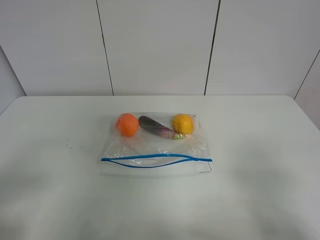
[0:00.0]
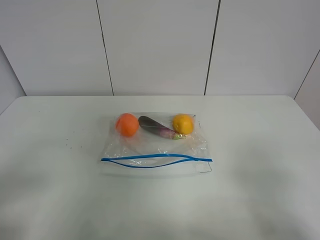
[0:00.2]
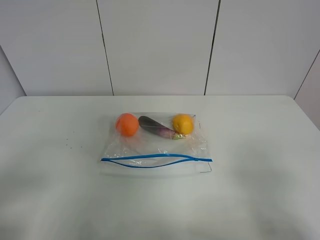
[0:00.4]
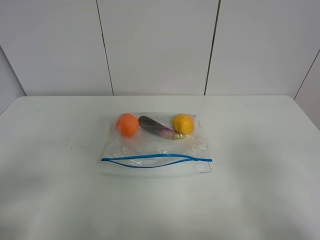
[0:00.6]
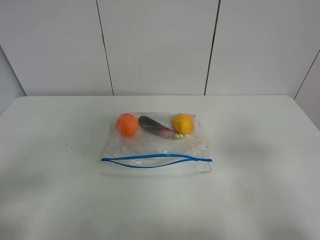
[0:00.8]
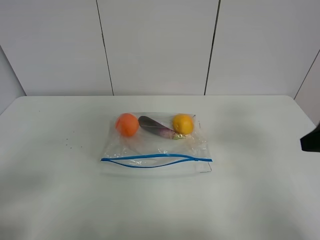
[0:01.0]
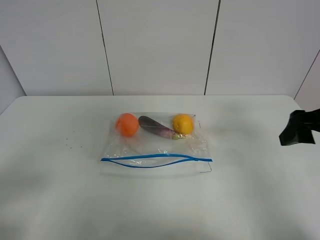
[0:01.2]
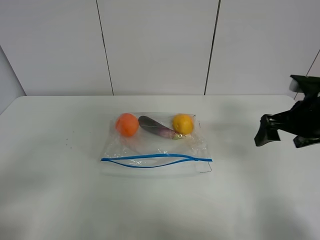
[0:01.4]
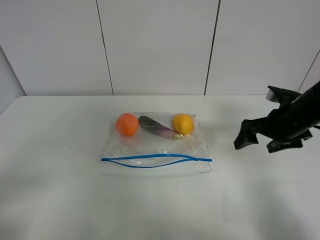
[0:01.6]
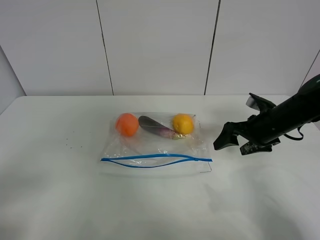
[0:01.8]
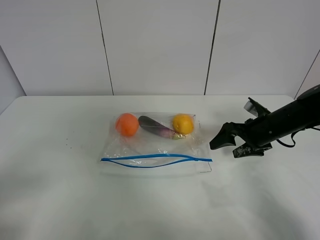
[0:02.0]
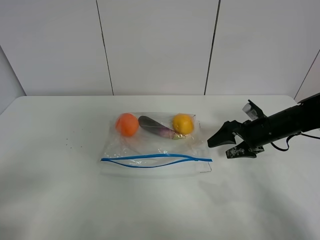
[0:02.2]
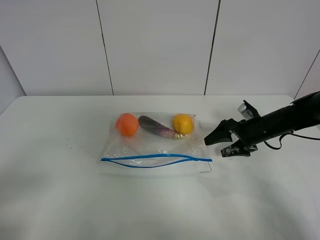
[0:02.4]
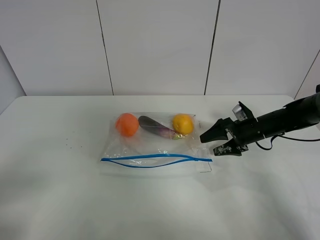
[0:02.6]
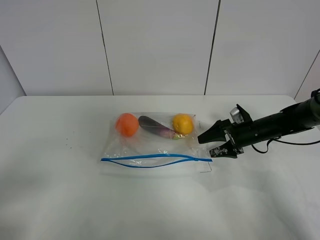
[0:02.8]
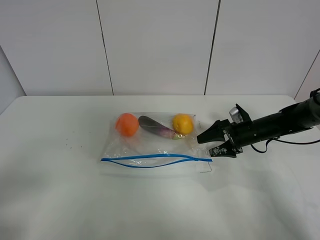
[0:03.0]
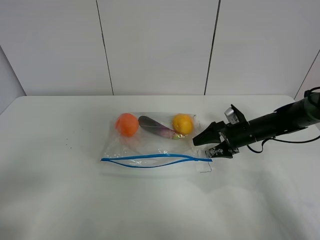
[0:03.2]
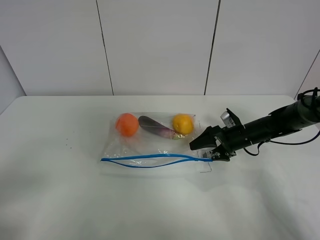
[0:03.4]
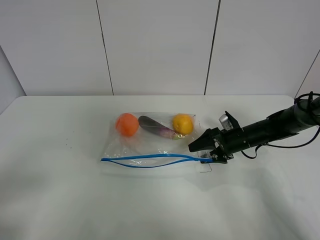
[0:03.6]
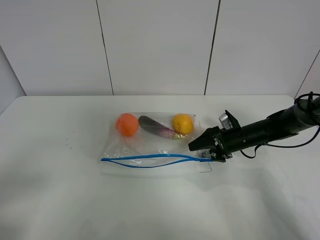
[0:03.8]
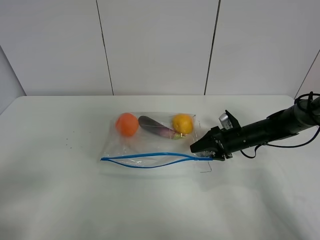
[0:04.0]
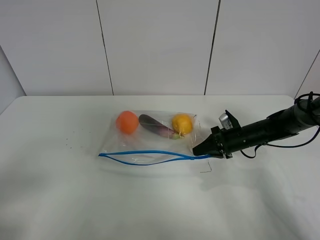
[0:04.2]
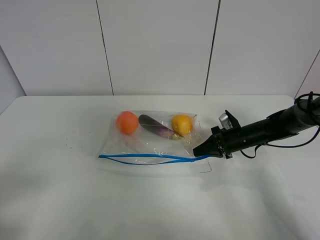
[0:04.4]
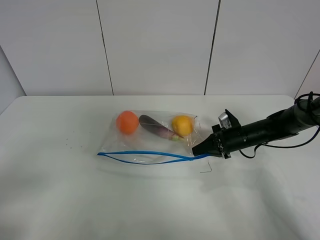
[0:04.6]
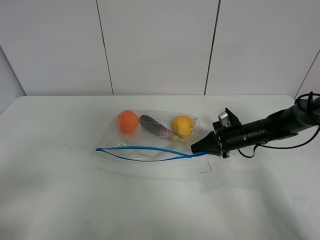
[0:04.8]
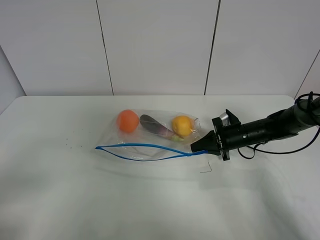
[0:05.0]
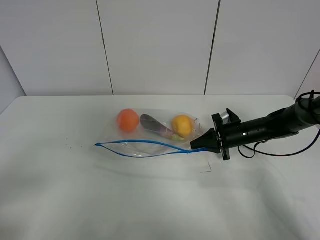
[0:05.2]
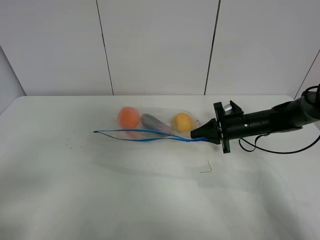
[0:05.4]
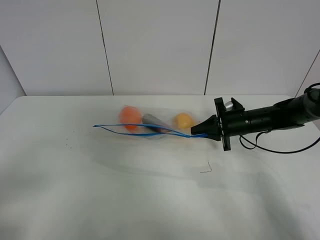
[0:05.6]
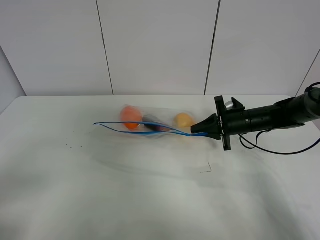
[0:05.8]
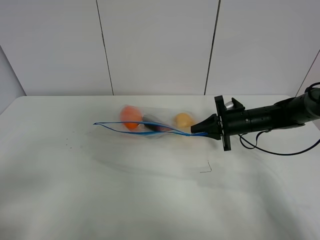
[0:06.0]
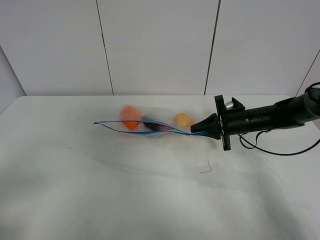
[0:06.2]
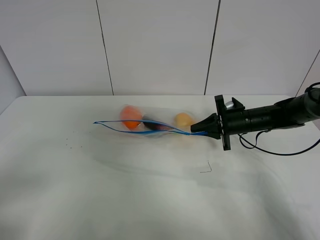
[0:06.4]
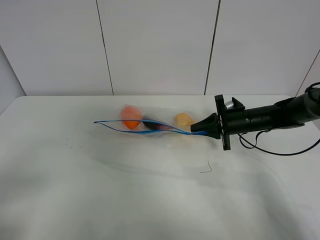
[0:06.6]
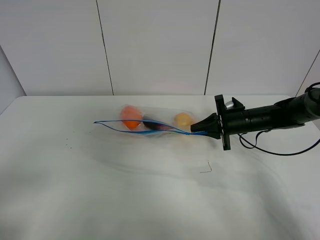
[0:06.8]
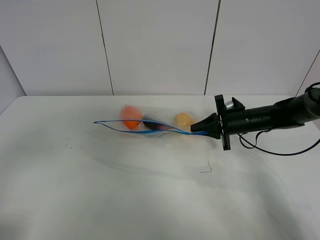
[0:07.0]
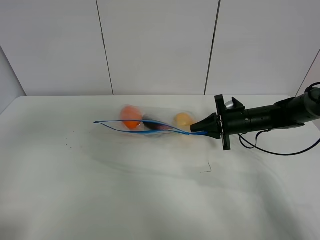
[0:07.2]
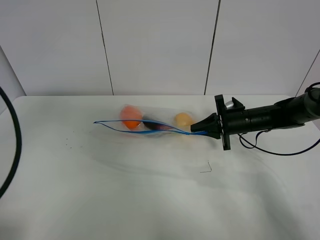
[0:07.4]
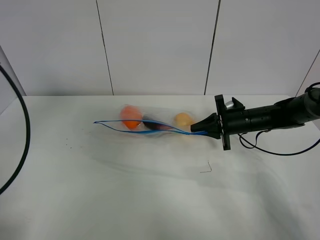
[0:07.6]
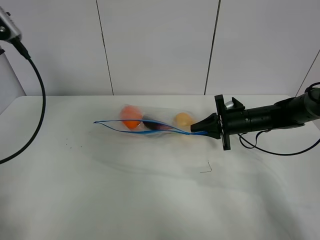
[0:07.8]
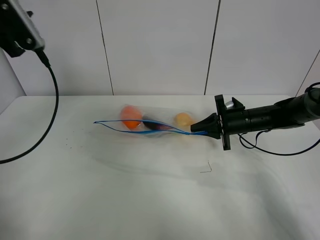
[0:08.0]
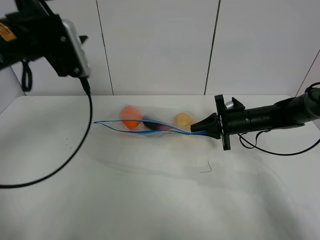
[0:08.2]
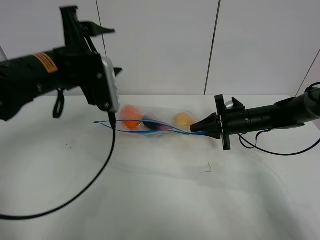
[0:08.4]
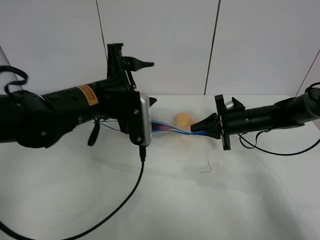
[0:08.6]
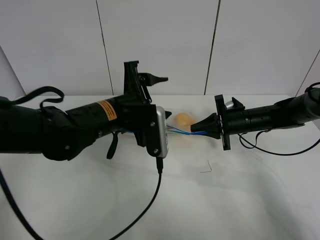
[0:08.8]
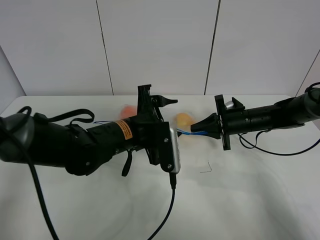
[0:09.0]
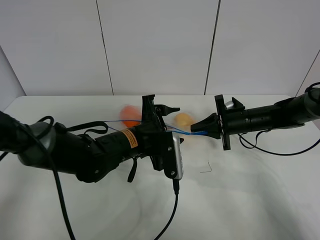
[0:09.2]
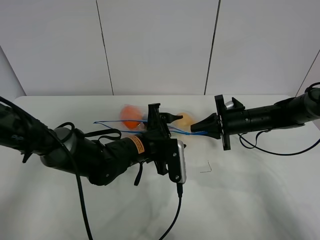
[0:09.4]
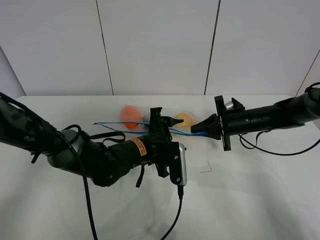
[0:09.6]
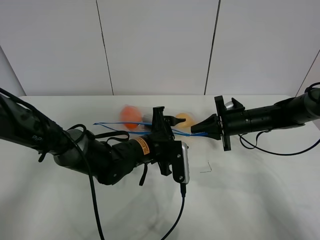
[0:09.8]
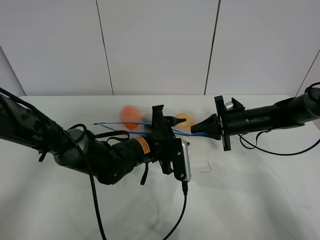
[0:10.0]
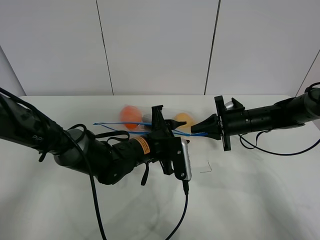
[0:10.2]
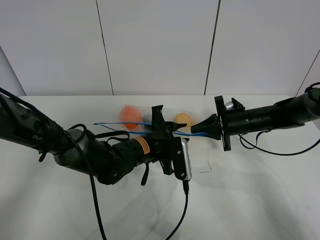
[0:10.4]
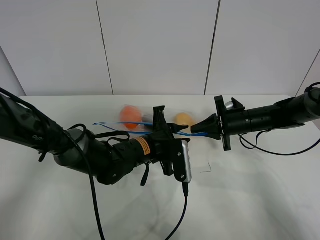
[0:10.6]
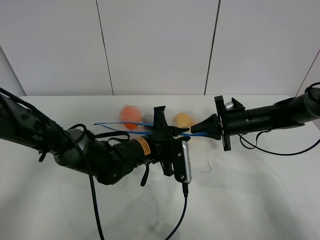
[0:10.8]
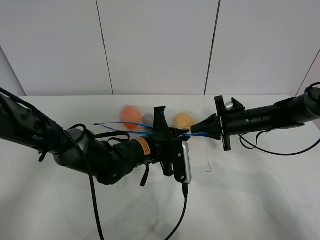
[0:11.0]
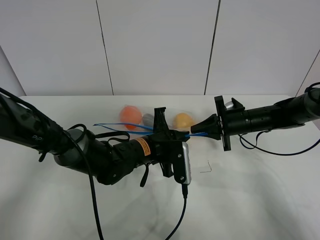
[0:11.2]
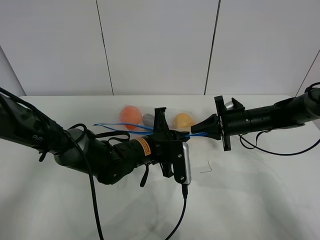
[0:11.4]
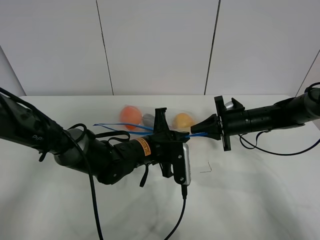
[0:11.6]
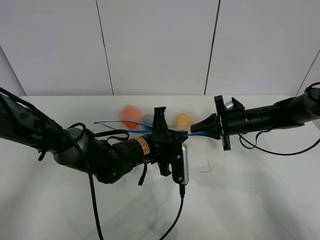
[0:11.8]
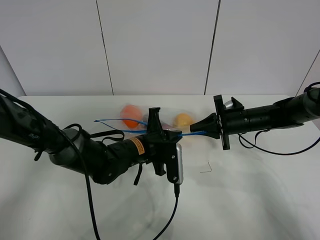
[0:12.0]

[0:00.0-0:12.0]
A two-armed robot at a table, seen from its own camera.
Step, 0:00.0 to 0:04.2: Grasp the fruit bag with right gripper.
Step, 0:04.4 to 0:07.2: Lift the fruit bag with your right gripper.
0:00.0 to 0:01.6: The right gripper shifts approximately 30 cm forward.
0:01.6 to 0:03.0: The right gripper heads downward and forward, covering roughly 15 cm.
0:03.0 to 0:04.4: The right gripper closes up.
0:04.4 to 0:06.0: The right gripper changes place by some 5 cm.
0:06.0 to 0:07.6: The left gripper heads forward and upward, covering some 25 cm.
0:07.6 to 0:09.0: The left gripper travels to the right and downward by roughly 35 cm.
0:09.0 to 0:10.4: The left gripper moves downward, approximately 5 cm, and closes its fingers.
0:10.4 to 0:12.0: The left gripper closes up.

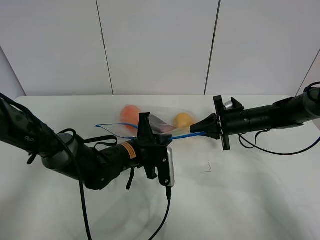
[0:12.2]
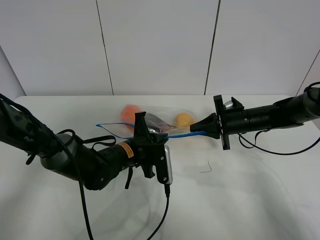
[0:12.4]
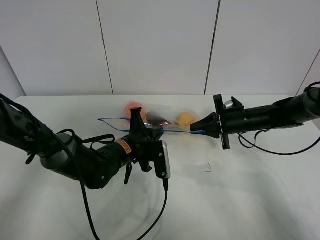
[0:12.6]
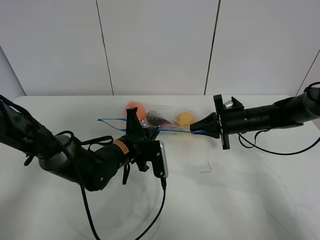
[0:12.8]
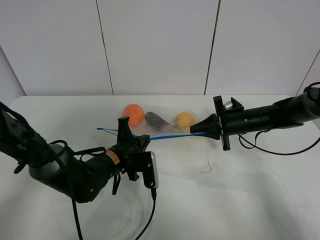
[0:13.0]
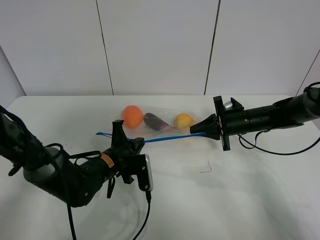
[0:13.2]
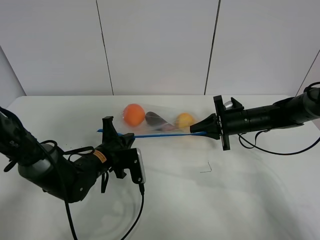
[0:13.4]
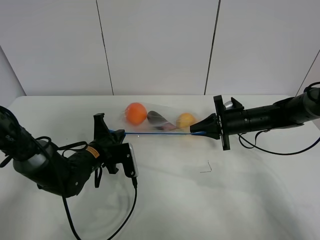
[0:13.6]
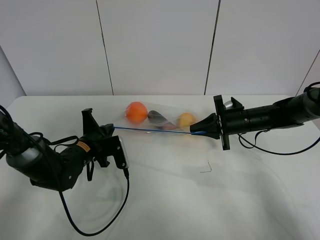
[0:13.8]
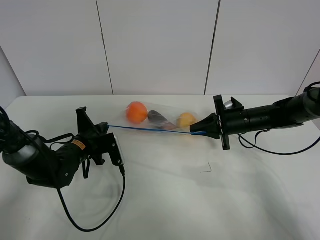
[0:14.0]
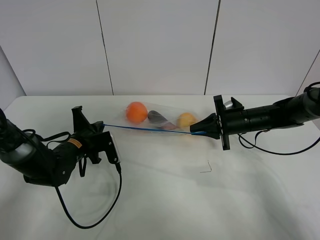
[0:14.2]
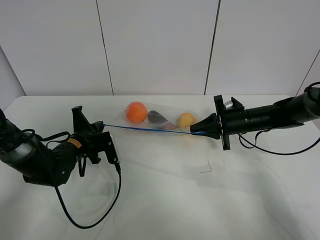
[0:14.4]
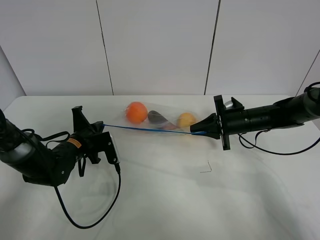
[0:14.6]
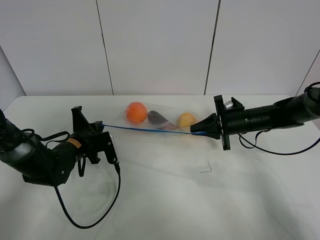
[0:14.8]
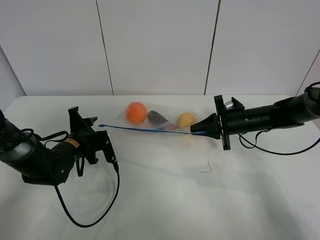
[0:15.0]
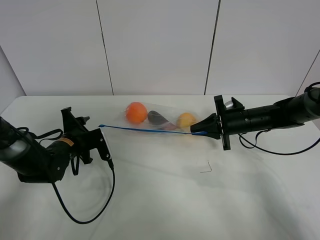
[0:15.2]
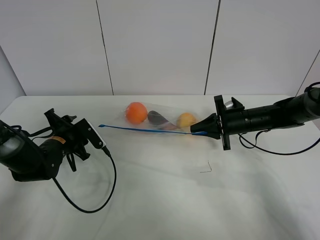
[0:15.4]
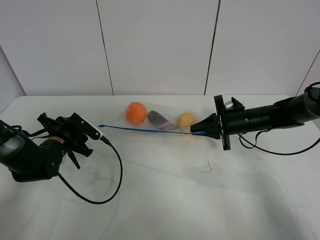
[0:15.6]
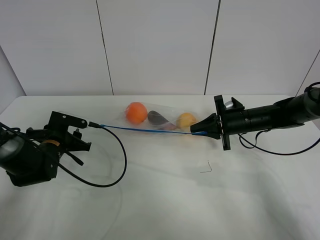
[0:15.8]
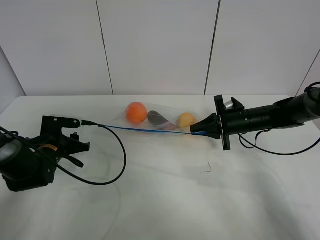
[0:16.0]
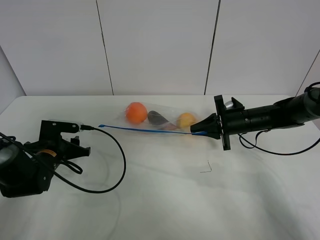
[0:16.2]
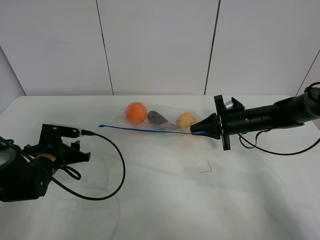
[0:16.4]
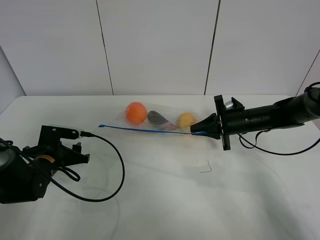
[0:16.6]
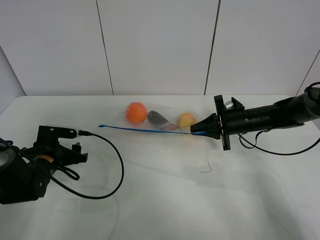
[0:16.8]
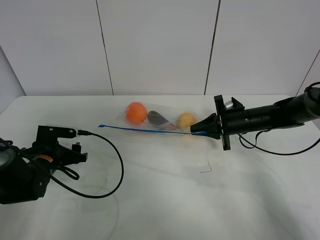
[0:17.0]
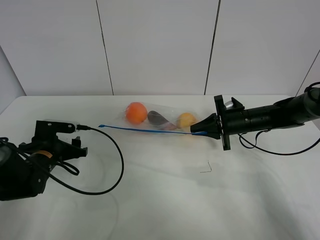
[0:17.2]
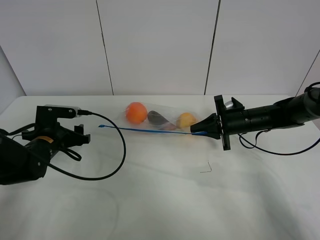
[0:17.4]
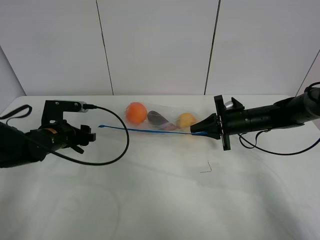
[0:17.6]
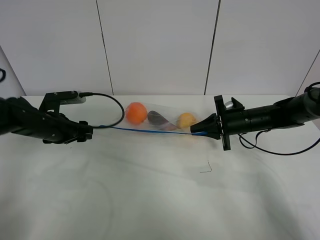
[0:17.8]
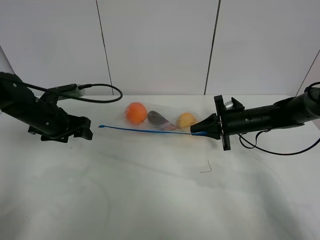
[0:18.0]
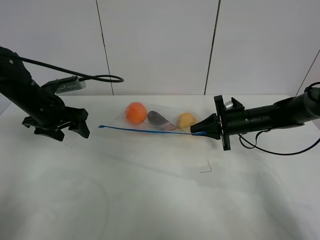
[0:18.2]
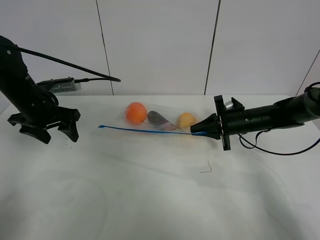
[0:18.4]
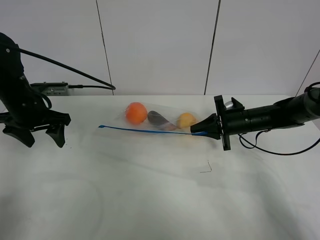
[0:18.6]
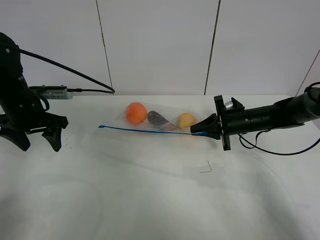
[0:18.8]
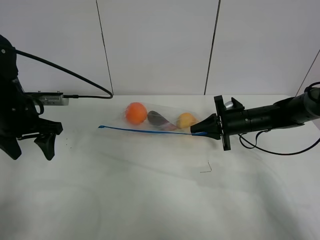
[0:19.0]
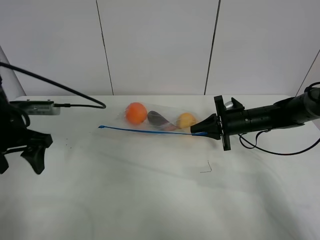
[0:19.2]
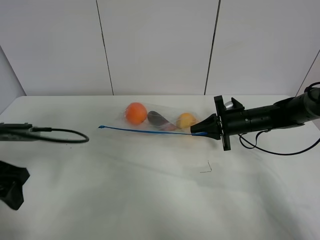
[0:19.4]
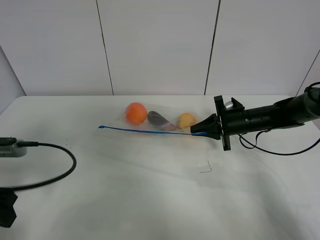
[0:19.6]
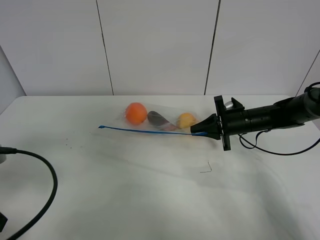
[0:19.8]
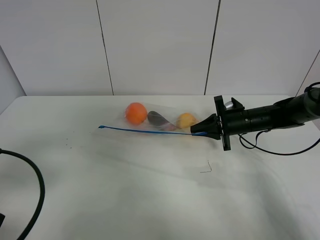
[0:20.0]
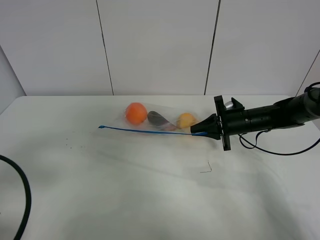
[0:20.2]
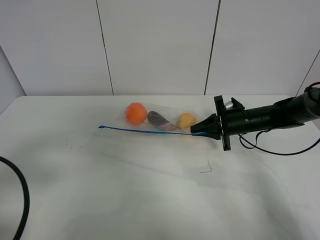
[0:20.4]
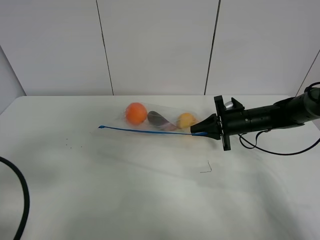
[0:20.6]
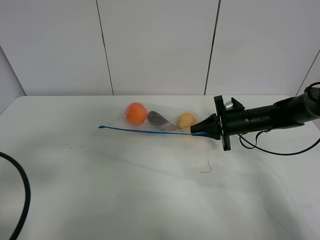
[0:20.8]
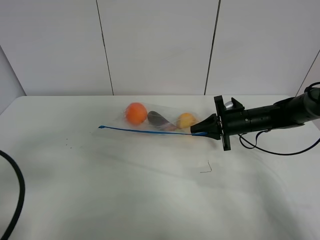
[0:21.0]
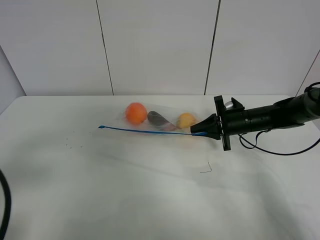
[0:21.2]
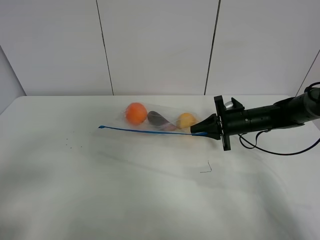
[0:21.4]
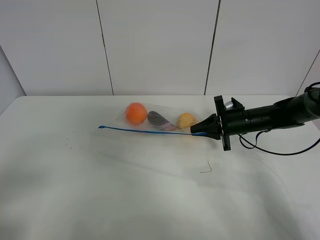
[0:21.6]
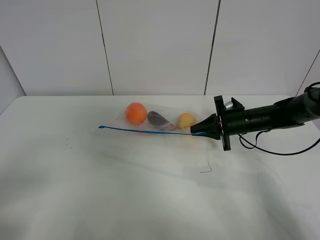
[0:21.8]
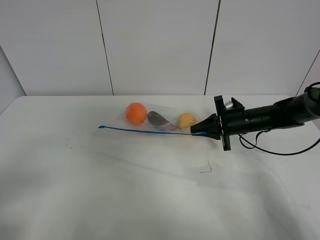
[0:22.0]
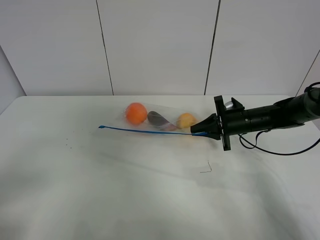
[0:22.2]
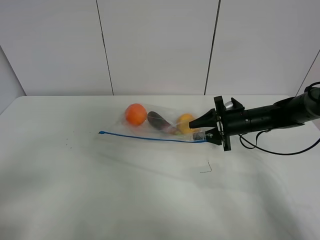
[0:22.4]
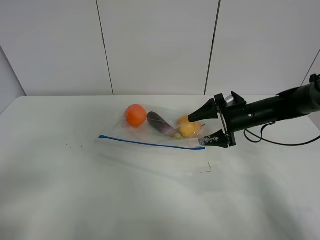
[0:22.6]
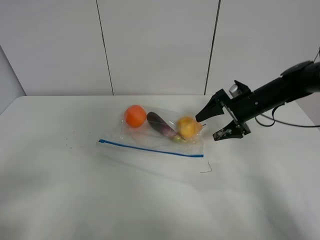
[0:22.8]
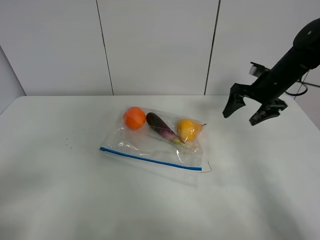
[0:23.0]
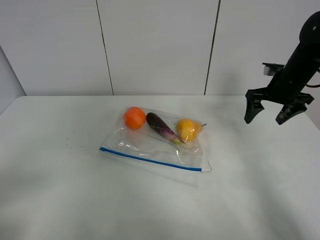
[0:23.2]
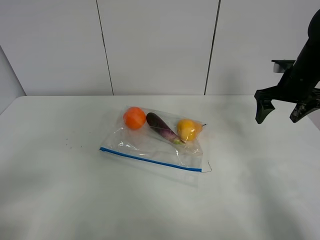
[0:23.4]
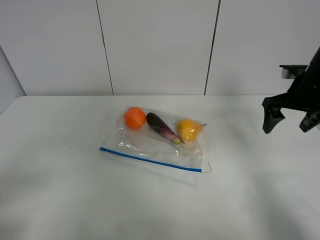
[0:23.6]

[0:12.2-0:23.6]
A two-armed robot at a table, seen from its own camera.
Step, 0:12.2 to 0:15.6: Pull the fruit bag with left gripper.
0:12.2 to 0:13.6: The left gripper travels to the left by some 10 cm.
0:13.6 to 0:15.0: The left gripper travels to the left by roughly 5 cm, and opens its fingers.
0:15.0 to 0:16.4: The left gripper travels to the left by approximately 5 cm.
0:16.4 to 0:17.8: The left gripper shifts about 5 cm upward.
0:17.8 to 0:19.4: The left gripper shifts approximately 15 cm backward and upward.
0:19.4 to 0:20.8: The left gripper is displaced backward by roughly 10 cm.
0:20.8 to 0:22.2: The left gripper shifts about 10 cm backward.
0:22.2 to 0:23.6: The right gripper heads upward and to the right, covering approximately 15 cm, and opens up.
